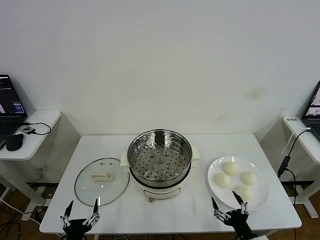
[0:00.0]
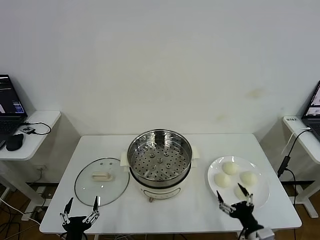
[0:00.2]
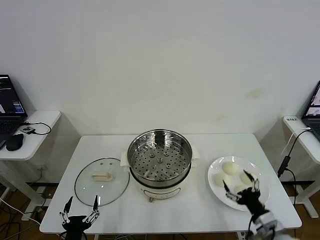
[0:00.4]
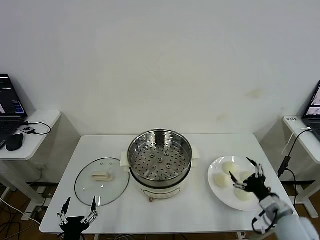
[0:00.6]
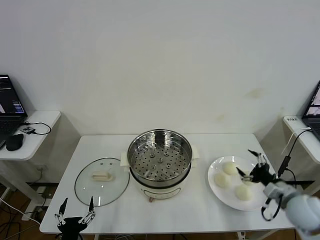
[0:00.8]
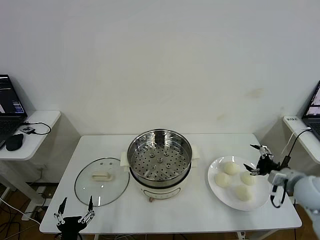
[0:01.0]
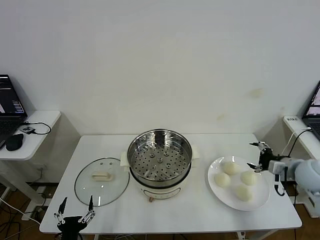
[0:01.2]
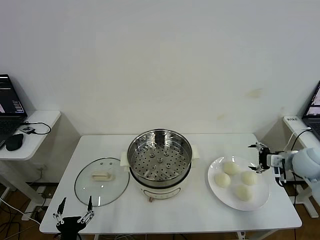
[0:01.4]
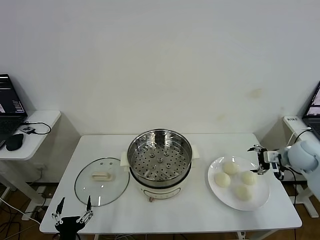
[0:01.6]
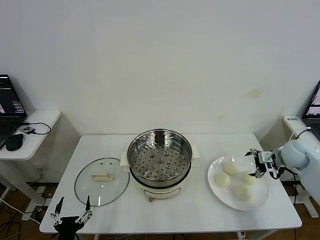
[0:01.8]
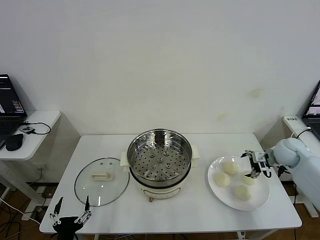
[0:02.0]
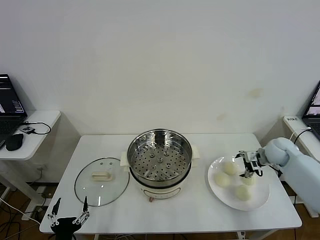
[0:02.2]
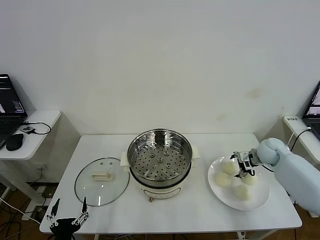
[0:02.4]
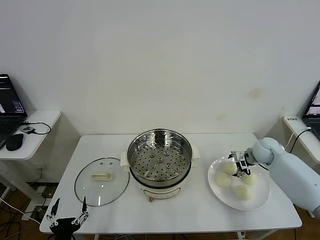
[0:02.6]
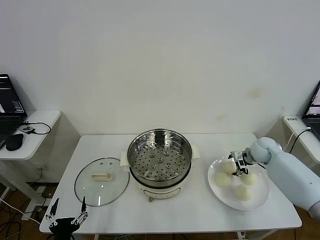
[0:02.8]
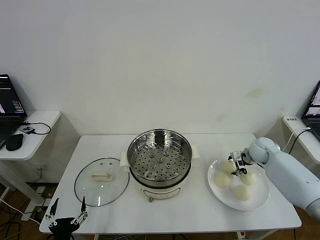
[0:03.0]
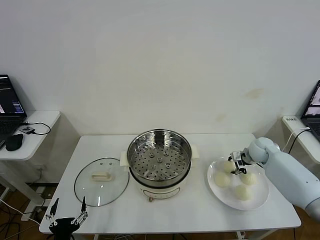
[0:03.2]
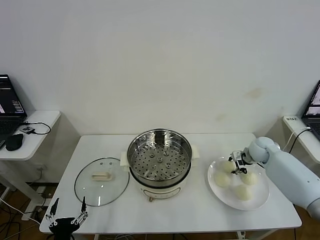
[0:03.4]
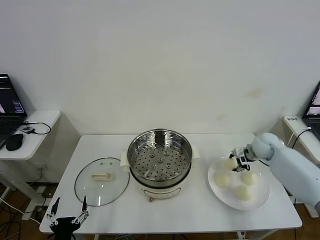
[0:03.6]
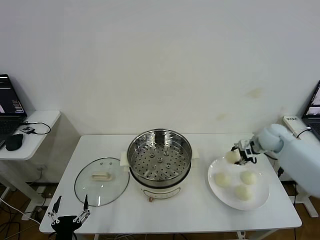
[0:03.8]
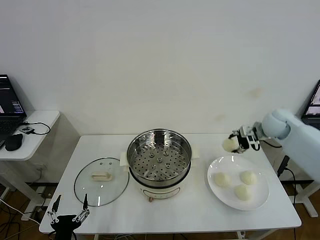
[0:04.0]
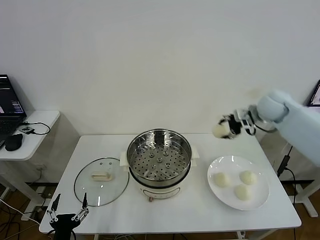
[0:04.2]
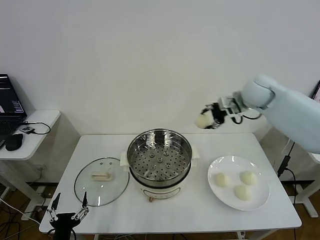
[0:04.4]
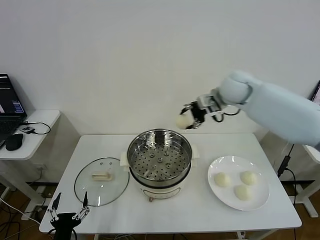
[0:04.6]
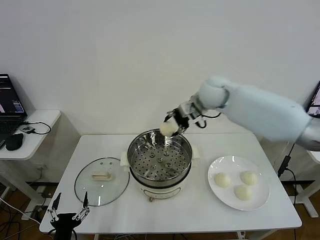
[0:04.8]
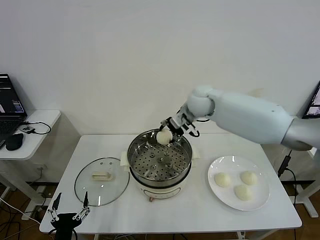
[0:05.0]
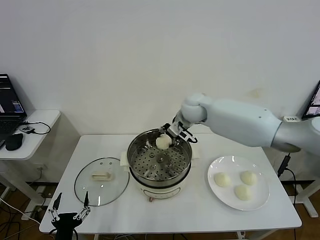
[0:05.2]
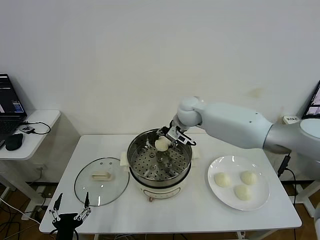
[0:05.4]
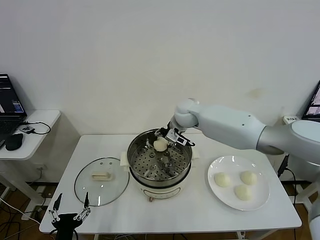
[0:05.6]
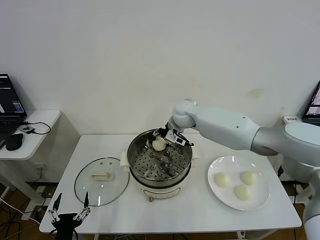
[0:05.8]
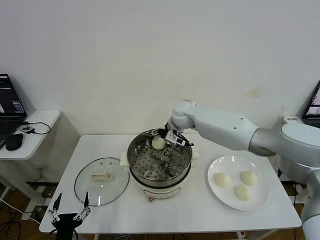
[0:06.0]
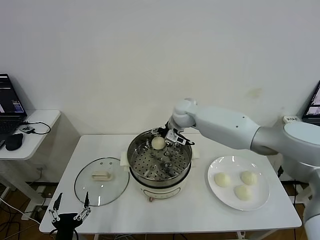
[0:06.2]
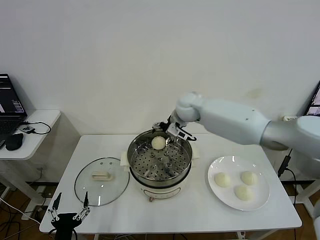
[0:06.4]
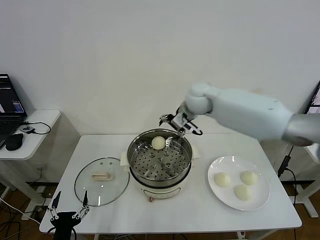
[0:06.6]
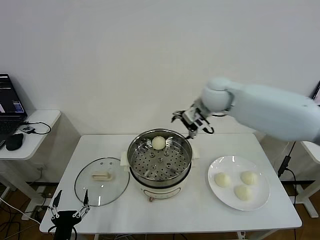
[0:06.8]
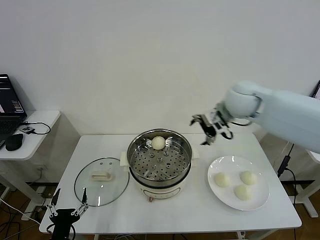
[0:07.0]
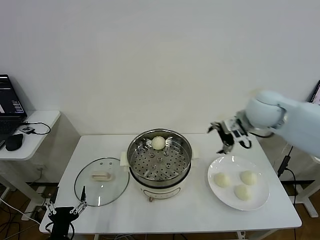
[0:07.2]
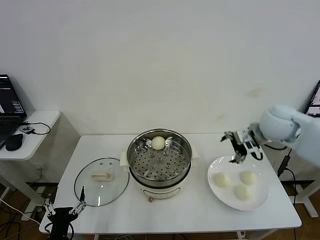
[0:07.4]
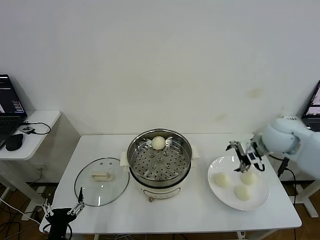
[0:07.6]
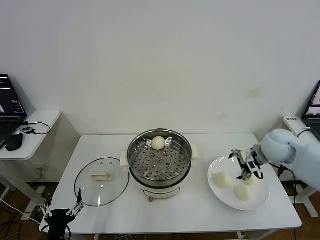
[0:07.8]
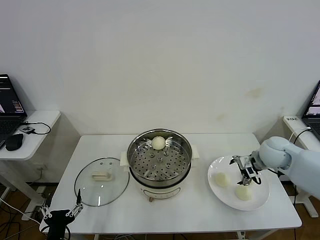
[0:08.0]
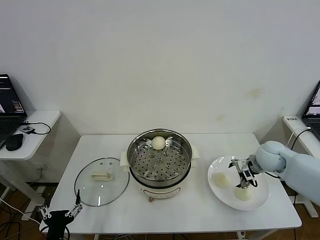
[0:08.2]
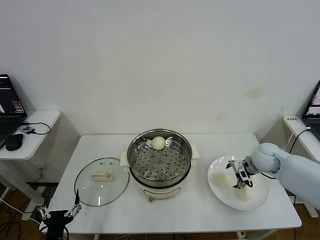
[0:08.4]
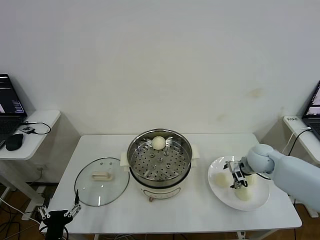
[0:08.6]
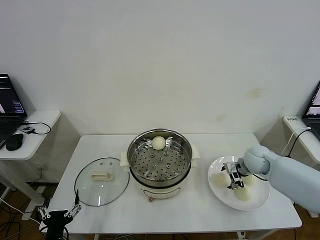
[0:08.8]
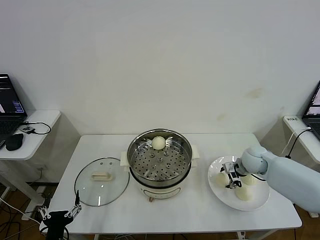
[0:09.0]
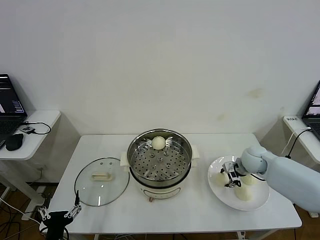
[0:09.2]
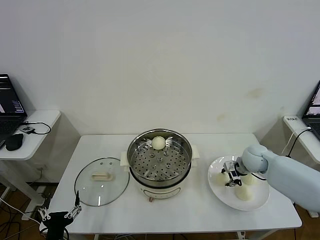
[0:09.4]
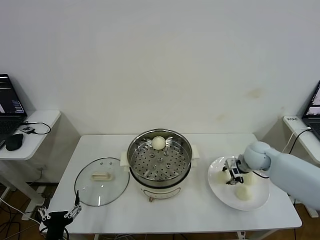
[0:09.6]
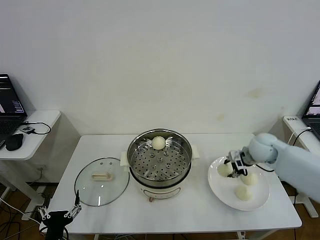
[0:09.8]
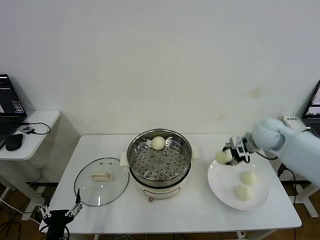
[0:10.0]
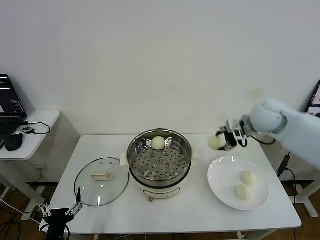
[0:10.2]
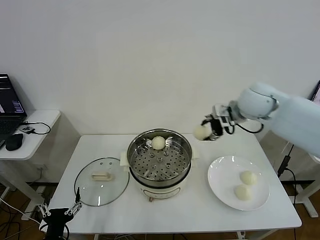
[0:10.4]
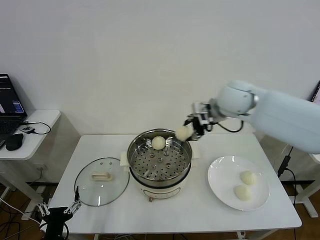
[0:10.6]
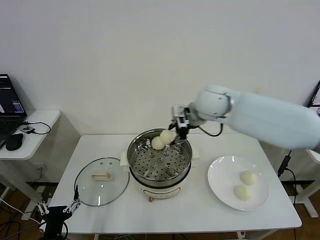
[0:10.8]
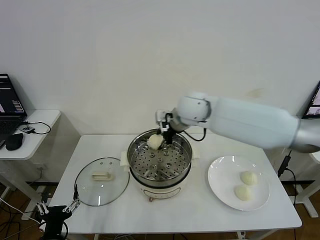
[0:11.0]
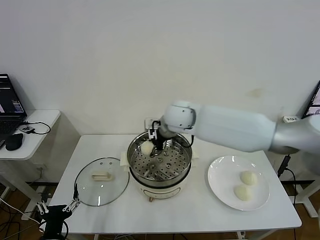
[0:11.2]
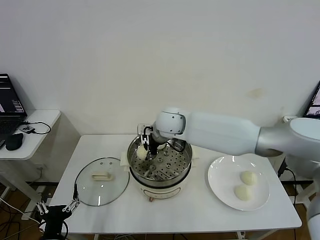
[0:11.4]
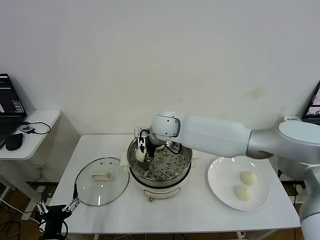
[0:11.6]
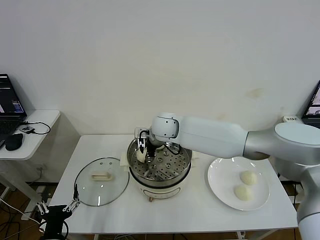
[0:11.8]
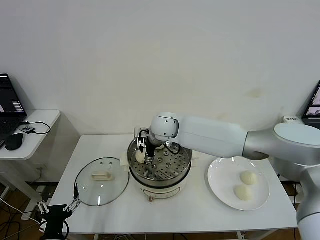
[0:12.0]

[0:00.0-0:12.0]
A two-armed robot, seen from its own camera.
Step, 0:00.0 to 0:03.0: Grasp the baozi in the plate with right gripper.
Step, 0:03.2 to 0:06.2: Place the baozi on the steamer with right gripper.
Step, 0:06.4 to 0:09.2: Grasp the baozi in the plate with right gripper.
Step, 0:09.4 to 0:11.8: Place the baozi on the steamer with right gripper.
0:01.6 to 0:03.0: The right gripper goes roughly 15 cm downward, forward and to the left, and closes up.
0:03.0 to 0:04.4: The right gripper moves upward and to the left, approximately 30 cm.
0:04.4 to 0:06.0: The right gripper shifts about 20 cm to the left and downward, and opens.
0:06.0 to 0:07.6: The right gripper travels to the right and backward by some 30 cm.
0:07.6 to 0:09.0: The right gripper travels downward by roughly 15 cm, and closes up.
0:09.0 to 0:10.4: The right gripper heads upward and to the left, covering about 25 cm, and closes up.
0:10.4 to 0:12.0: The right gripper heads to the left and downward, covering approximately 25 cm, and opens up.

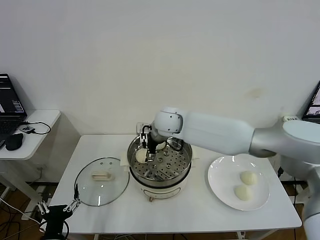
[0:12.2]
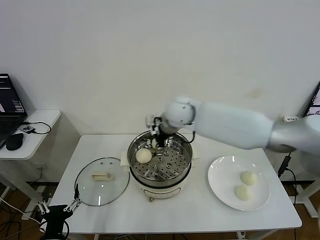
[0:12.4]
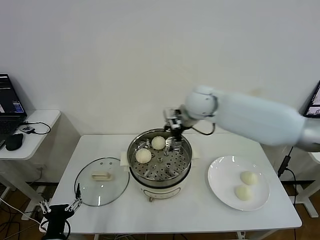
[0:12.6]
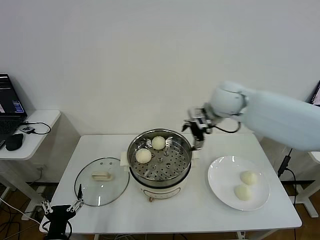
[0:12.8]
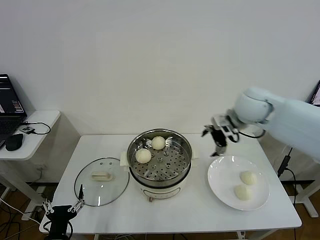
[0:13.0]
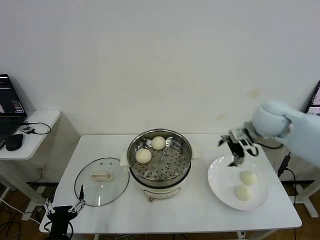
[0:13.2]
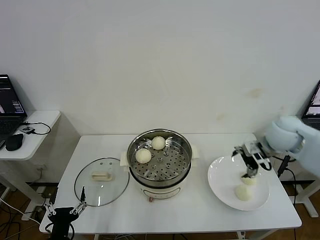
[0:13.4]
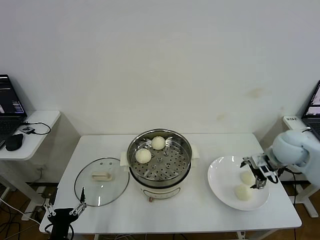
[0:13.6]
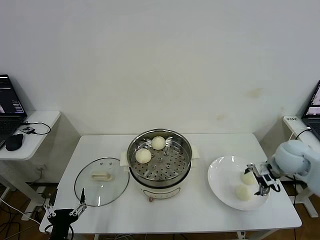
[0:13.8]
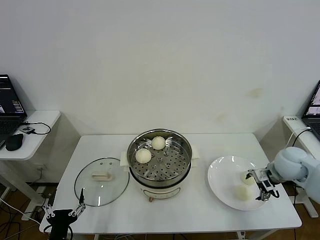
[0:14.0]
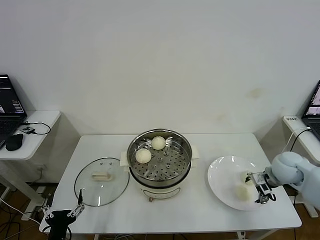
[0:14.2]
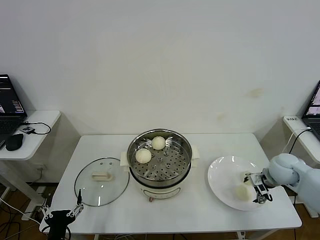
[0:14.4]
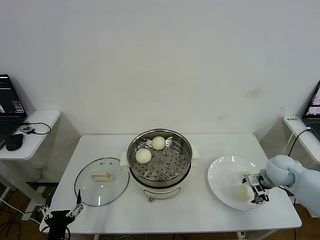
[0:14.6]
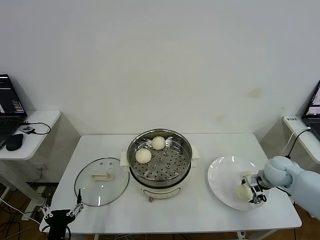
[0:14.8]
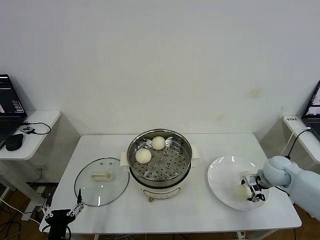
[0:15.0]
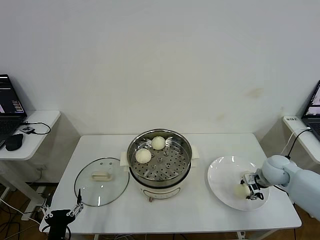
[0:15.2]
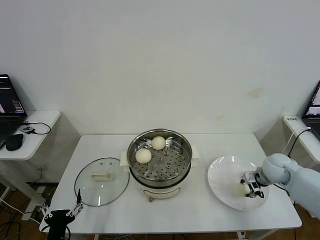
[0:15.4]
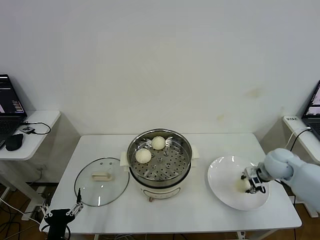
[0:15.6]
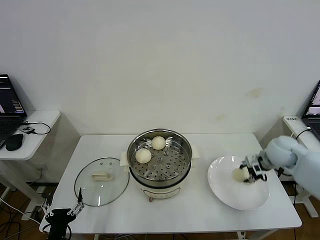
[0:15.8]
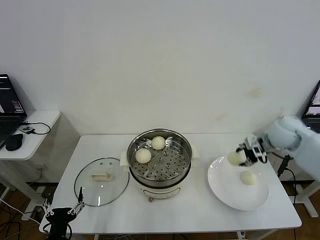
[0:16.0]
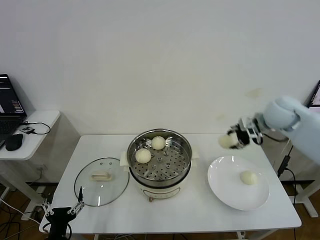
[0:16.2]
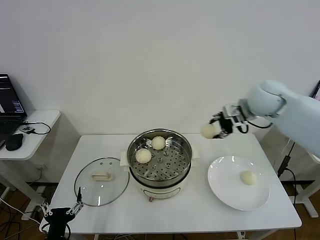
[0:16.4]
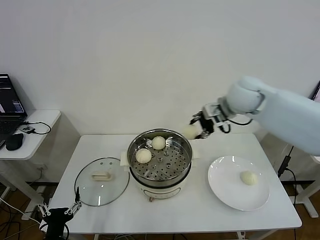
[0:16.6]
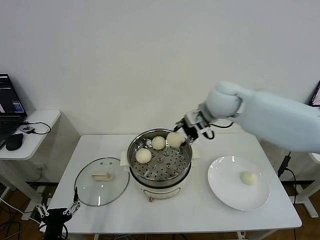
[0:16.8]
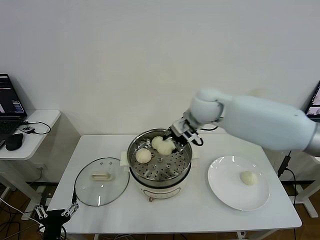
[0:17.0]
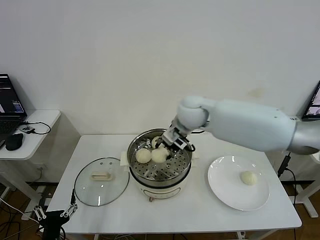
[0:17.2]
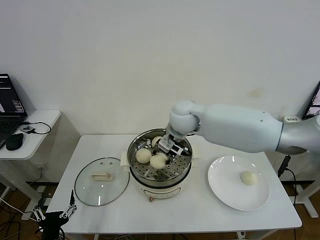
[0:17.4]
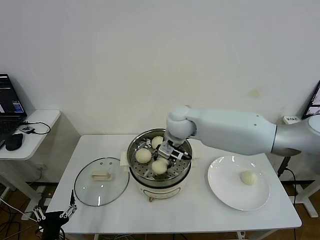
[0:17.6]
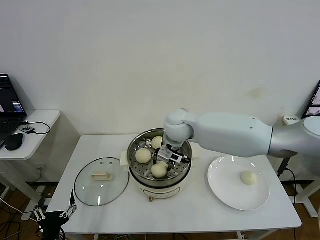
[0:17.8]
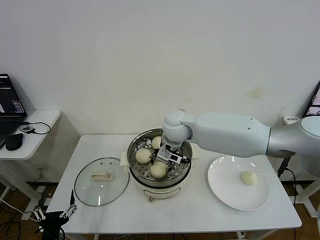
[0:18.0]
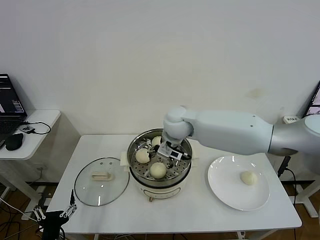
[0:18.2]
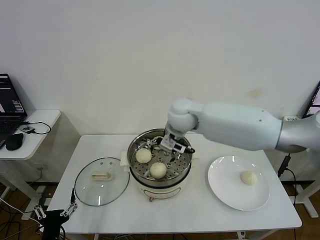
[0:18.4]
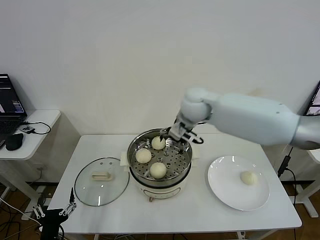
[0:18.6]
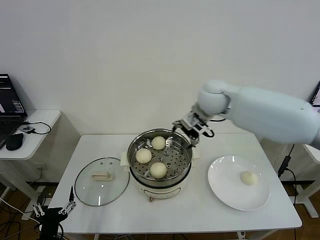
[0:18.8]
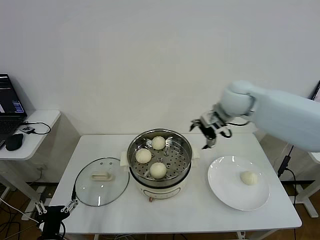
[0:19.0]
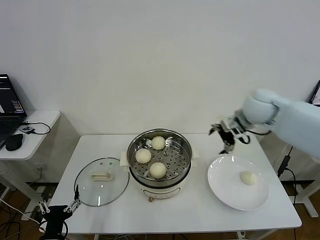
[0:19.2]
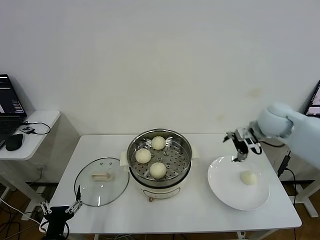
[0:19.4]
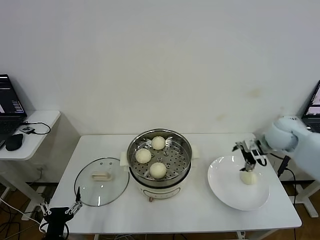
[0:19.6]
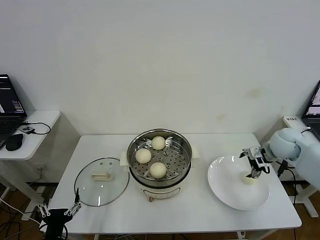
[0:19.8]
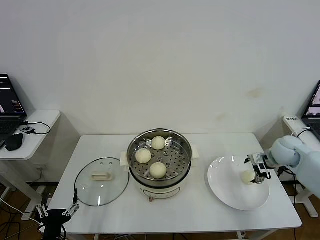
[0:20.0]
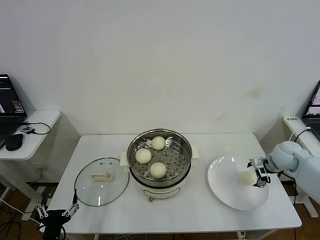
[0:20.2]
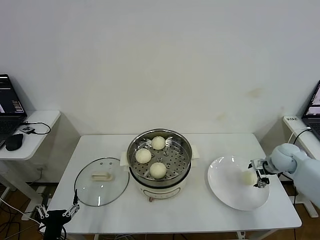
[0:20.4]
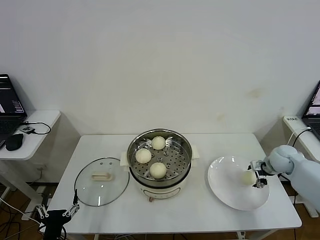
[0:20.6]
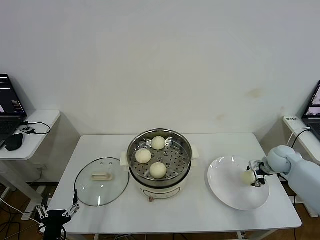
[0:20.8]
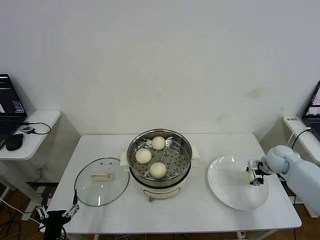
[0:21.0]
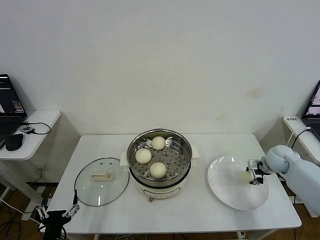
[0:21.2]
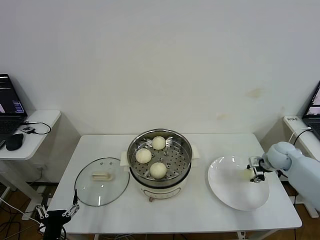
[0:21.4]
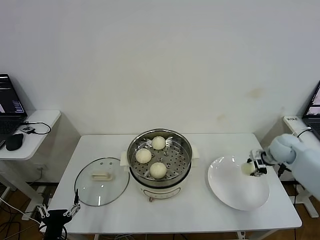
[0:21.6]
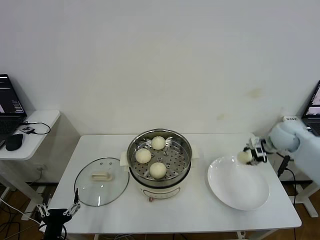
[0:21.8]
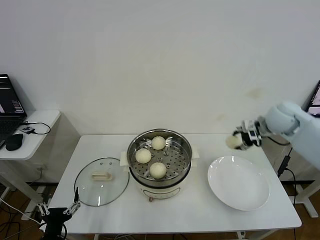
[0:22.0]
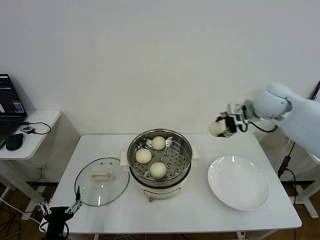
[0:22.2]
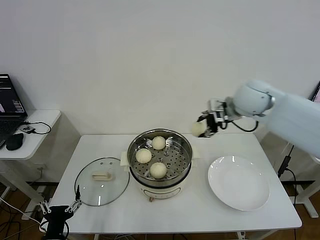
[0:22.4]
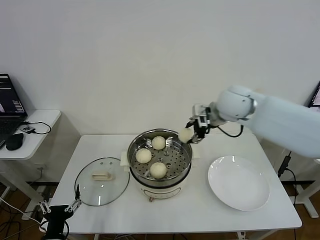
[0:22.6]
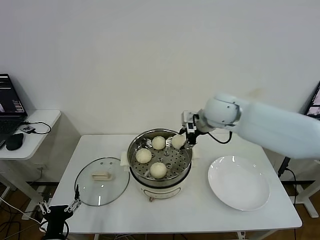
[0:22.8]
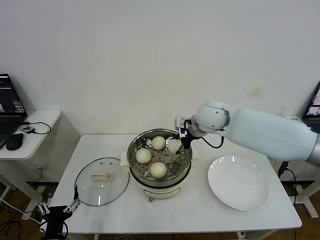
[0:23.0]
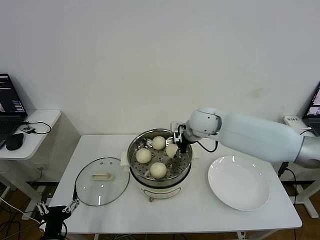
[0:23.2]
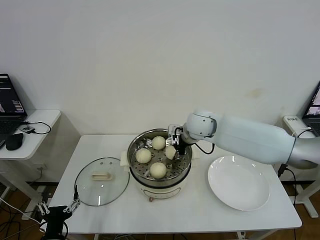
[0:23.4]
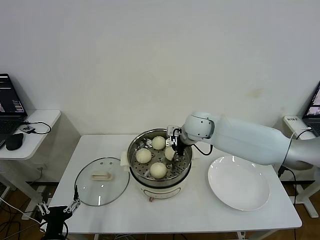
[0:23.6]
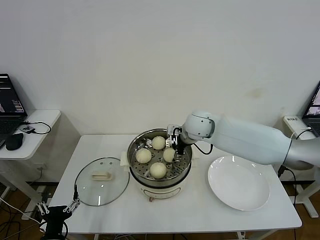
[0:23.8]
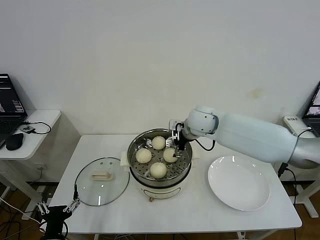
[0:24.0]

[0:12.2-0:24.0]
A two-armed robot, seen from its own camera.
Step, 0:12.2 to 0:15.0: Grasp the baozi in the plate with right gripper.
Step, 0:15.2 to 0:18.2: Place the baozi on the steamer with right gripper.
Step, 0:18.4 to 0:21.0: Grasp the baozi in the plate with right gripper.
Step, 0:21.4 to 0:23.8: Place the baozi on the steamer with right gripper.
0:12.2 to 0:13.6: The right gripper moves to the right, approximately 35 cm.
0:13.6 to 0:15.2: The right gripper goes about 10 cm downward, and closes up.
0:15.2 to 0:16.6: The right gripper goes some 30 cm upward and to the left.
0:16.6 to 0:18.2: The right gripper moves to the left and downward, approximately 15 cm, and opens its fingers.
0:18.2 to 0:19.6: The right gripper is displaced to the right by some 35 cm.
0:19.6 to 0:21.0: The right gripper is displaced downward and to the right by approximately 15 cm, and closes its fingers.
0:21.0 to 0:22.6: The right gripper heads to the left and upward, covering roughly 35 cm.
0:22.6 to 0:24.0: The right gripper heads downward and to the left, covering some 10 cm, and opens up.
